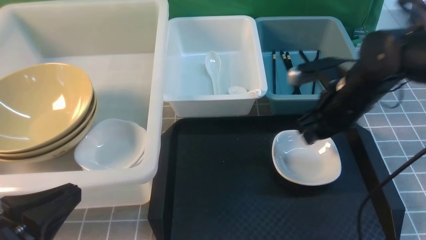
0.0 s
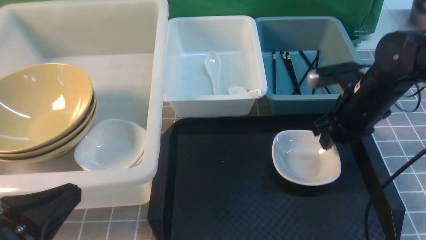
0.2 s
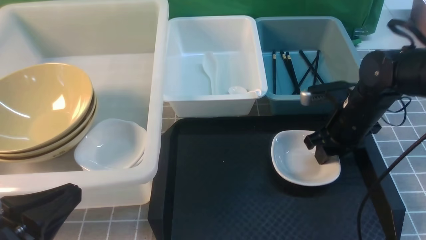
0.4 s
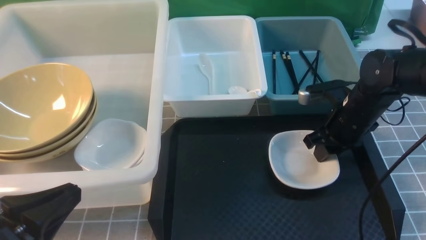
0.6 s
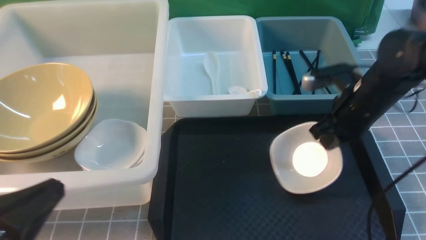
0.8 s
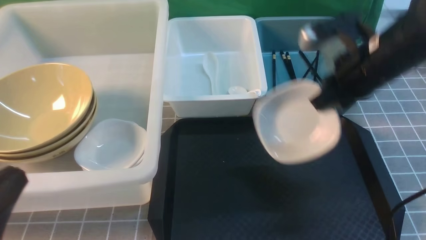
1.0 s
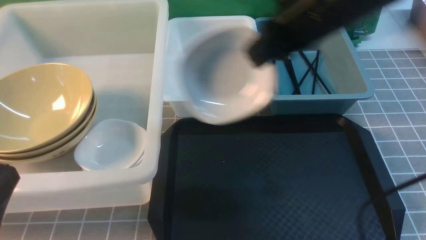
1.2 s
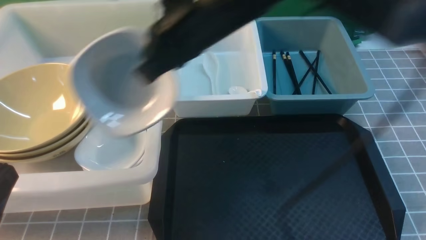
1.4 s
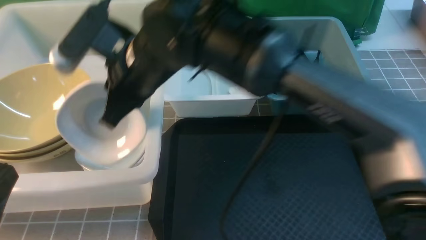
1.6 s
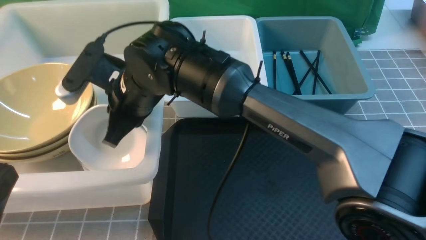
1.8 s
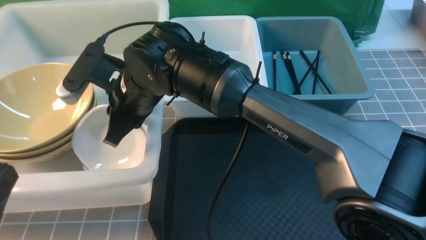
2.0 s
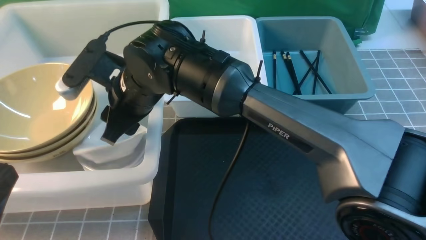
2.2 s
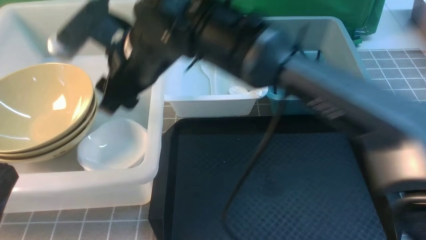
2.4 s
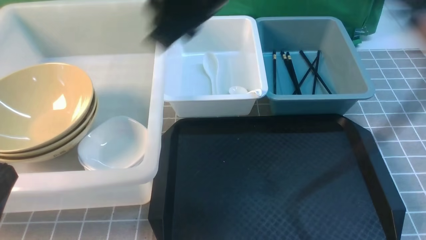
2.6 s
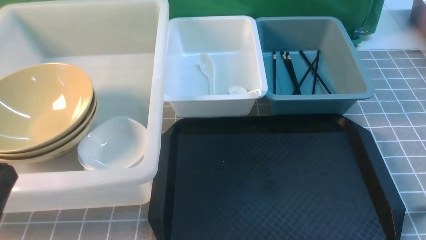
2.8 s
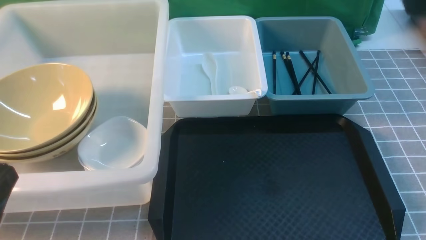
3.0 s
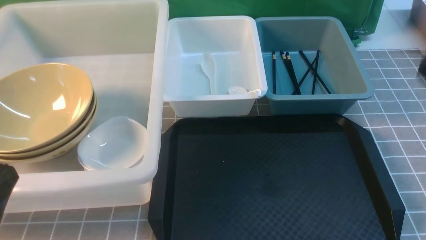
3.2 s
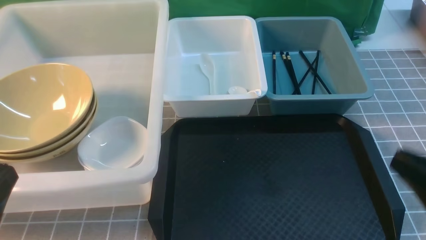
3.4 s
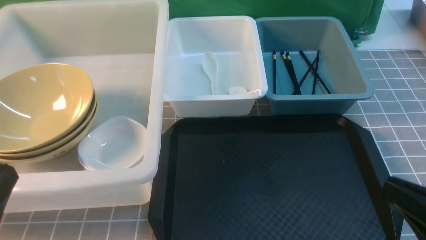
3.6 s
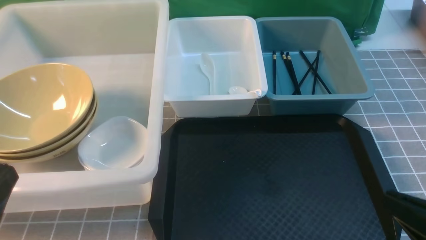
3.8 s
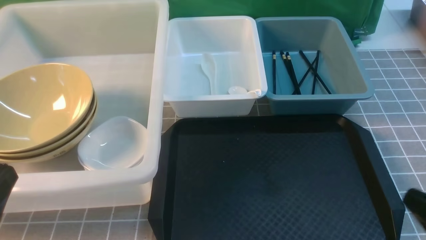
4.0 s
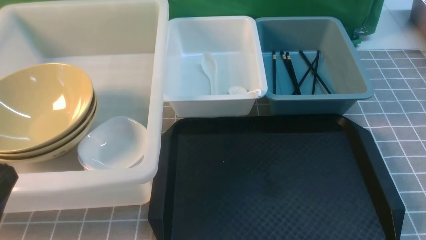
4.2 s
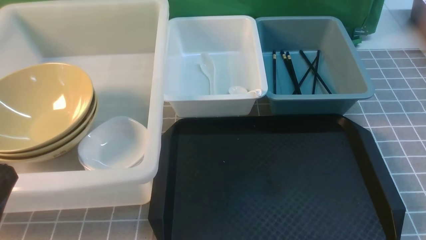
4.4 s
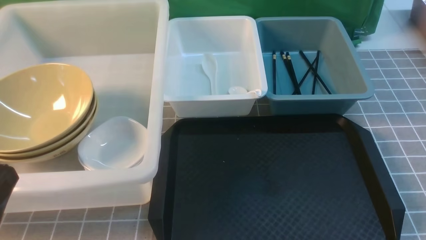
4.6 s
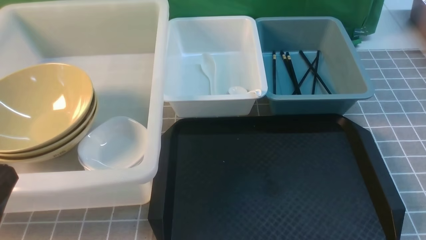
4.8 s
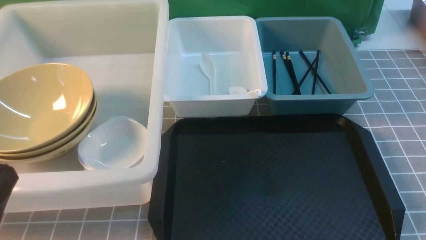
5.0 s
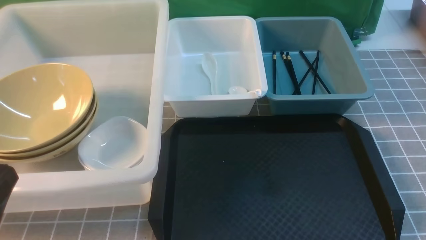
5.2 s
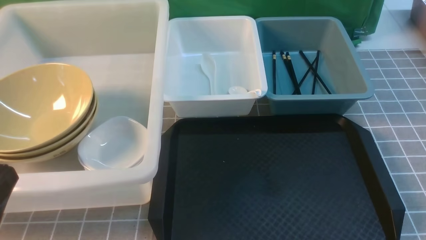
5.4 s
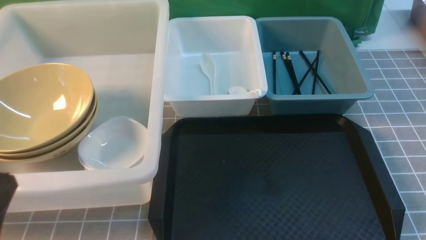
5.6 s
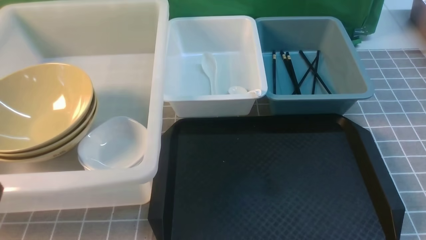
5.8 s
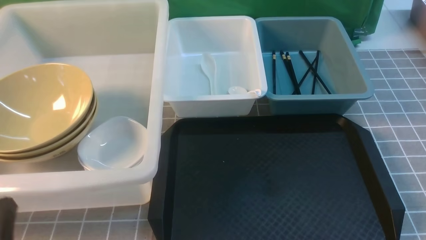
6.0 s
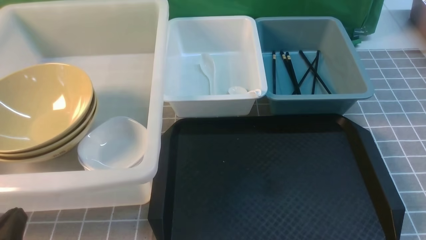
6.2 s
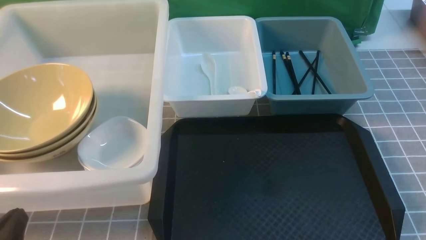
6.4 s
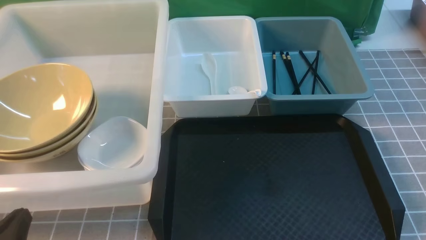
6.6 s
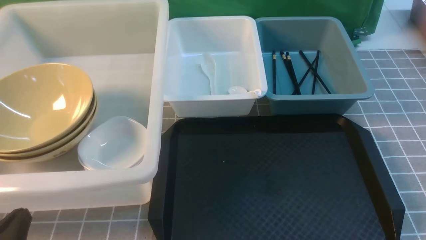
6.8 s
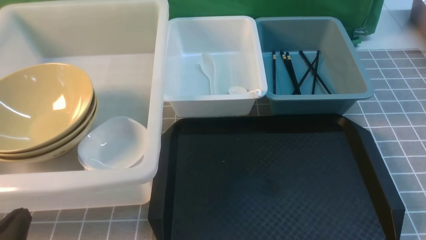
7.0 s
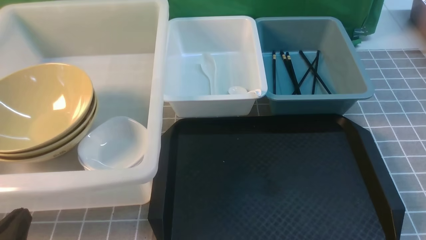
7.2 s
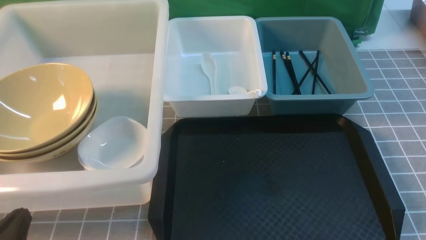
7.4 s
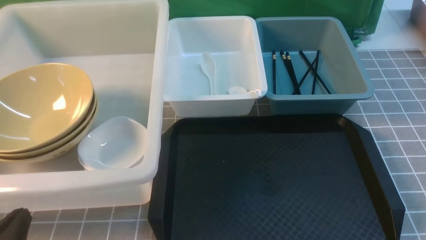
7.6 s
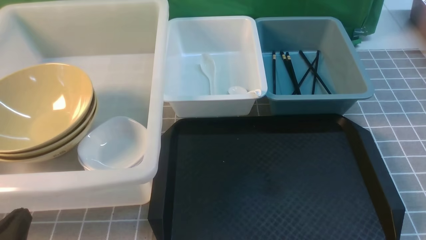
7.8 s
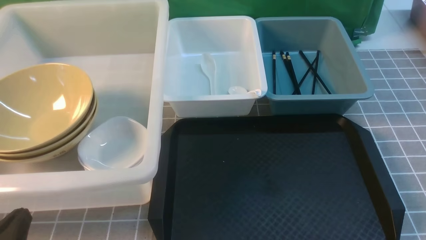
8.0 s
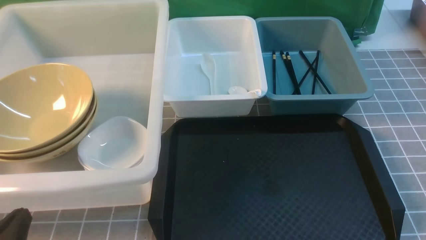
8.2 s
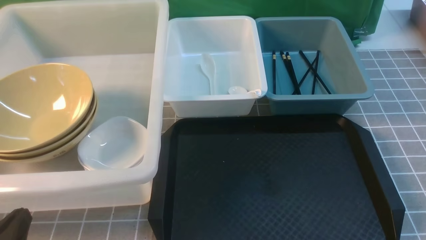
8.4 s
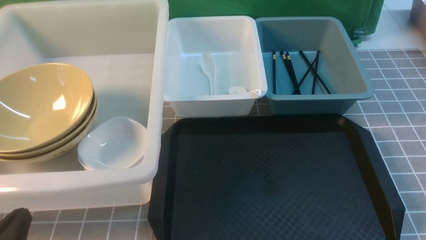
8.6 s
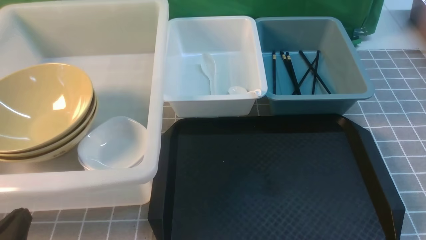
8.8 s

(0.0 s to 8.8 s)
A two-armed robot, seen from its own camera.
Task of the whole recording: on grey table put chopsticks spoon bowls plates into blue grey white boxes.
Step, 0.8 s - 2.2 s: use the right arm to put the plate into the large storage box on the left.
0.0 s - 1.4 s: The right gripper moves to the left and upward, some 25 cm, and closes.
1.4 s - 3.0 s: The right gripper goes approximately 25 cm to the right and backward, and opens and closes again.
7.4 s - 8.8 s: Both grippers stay put.

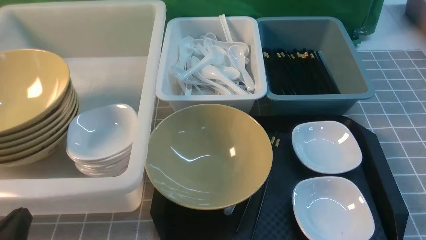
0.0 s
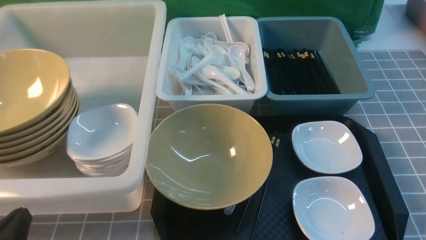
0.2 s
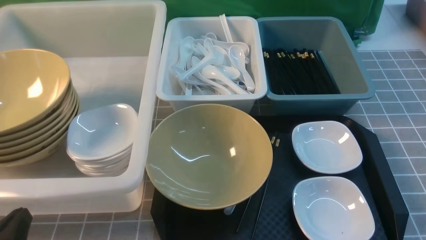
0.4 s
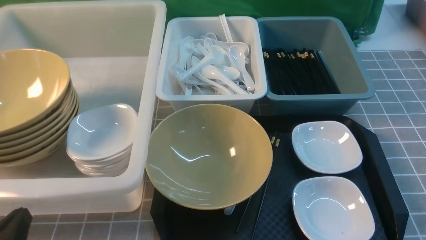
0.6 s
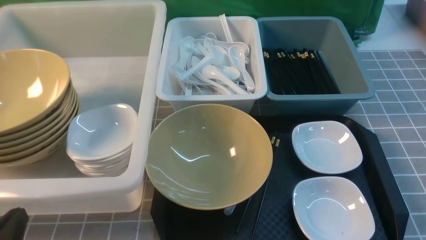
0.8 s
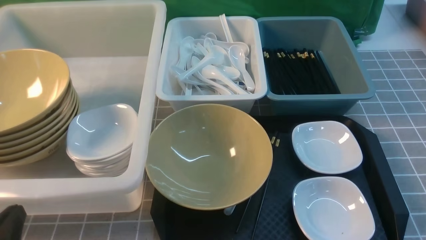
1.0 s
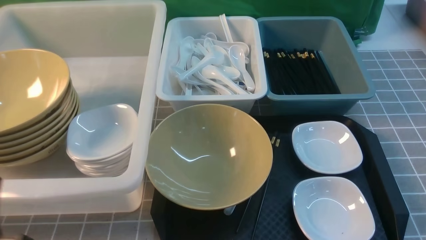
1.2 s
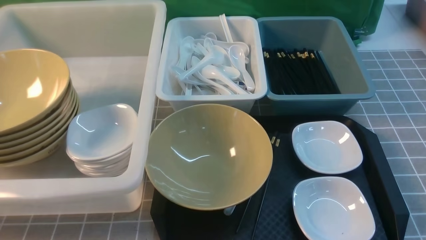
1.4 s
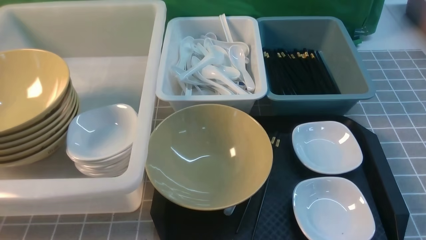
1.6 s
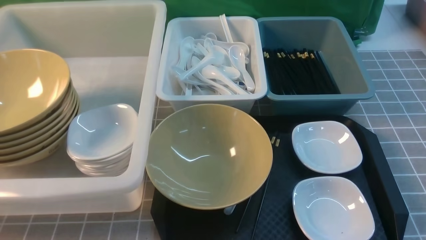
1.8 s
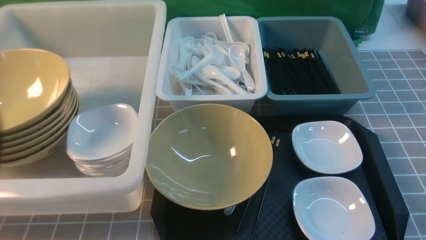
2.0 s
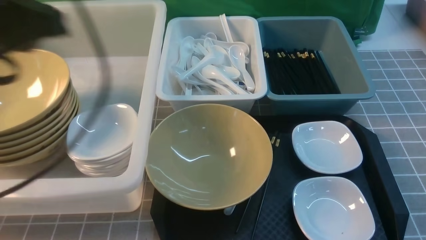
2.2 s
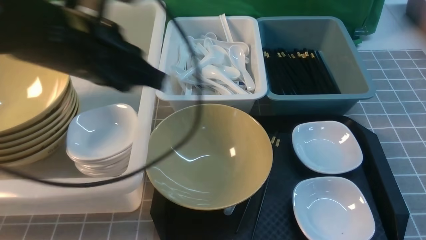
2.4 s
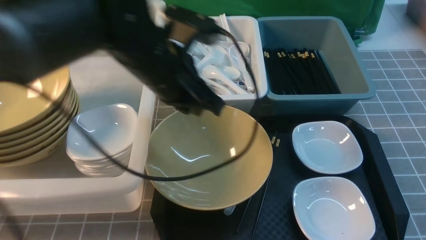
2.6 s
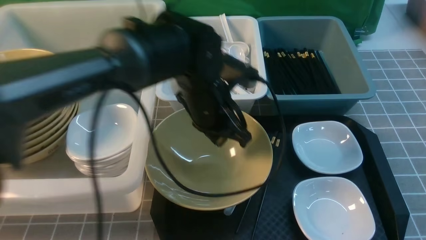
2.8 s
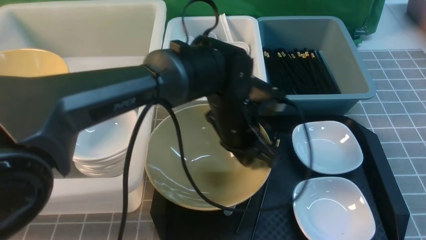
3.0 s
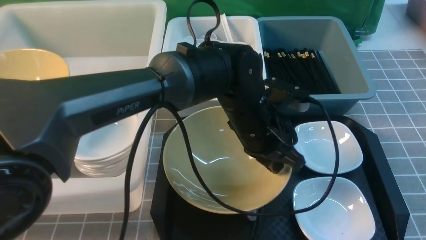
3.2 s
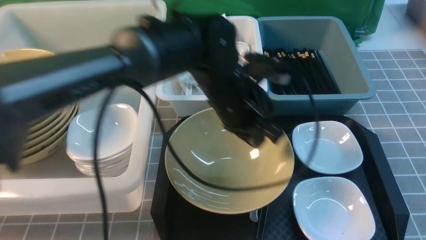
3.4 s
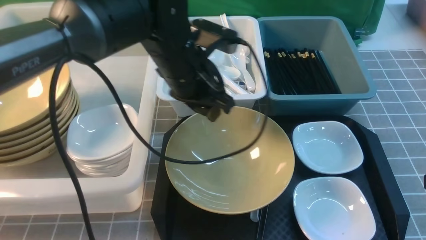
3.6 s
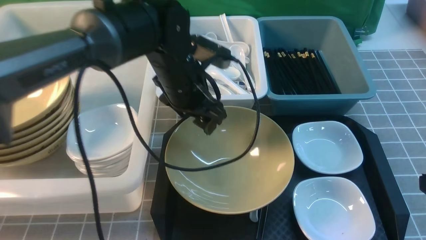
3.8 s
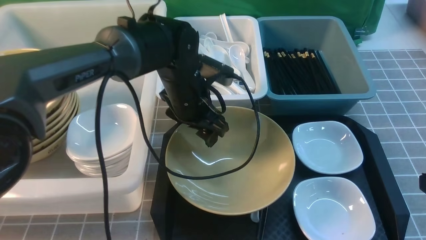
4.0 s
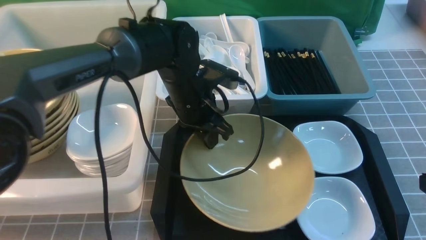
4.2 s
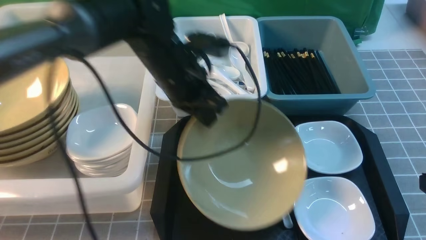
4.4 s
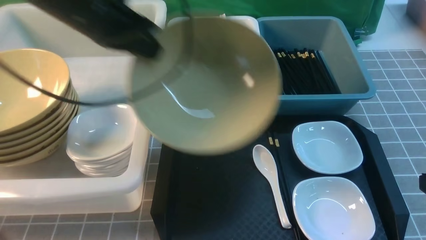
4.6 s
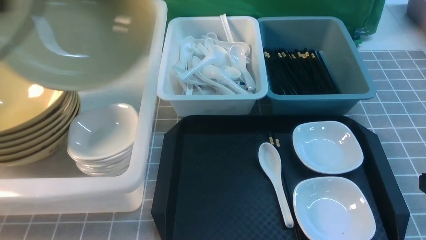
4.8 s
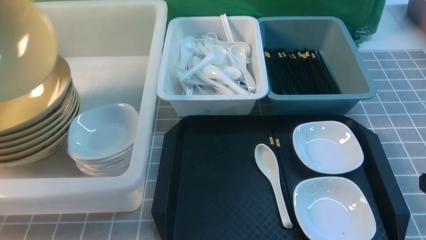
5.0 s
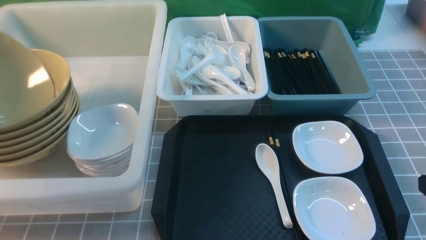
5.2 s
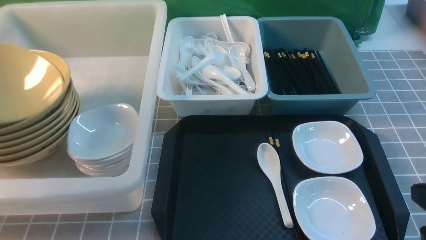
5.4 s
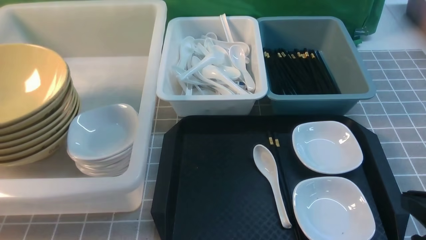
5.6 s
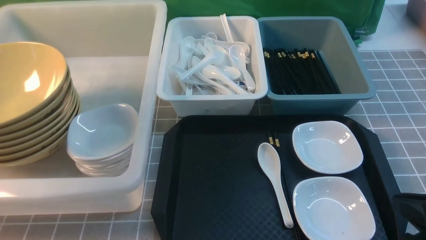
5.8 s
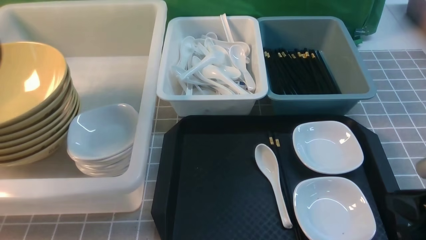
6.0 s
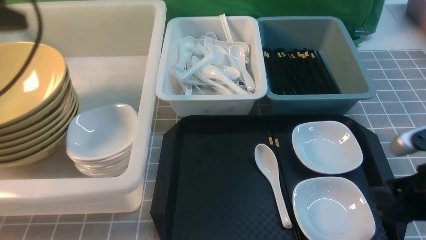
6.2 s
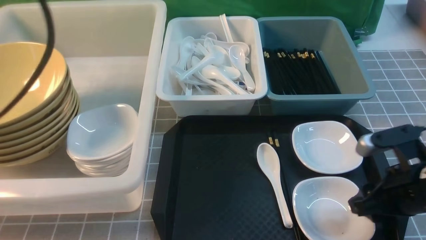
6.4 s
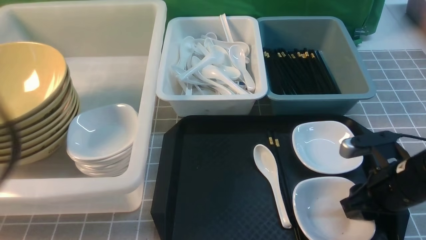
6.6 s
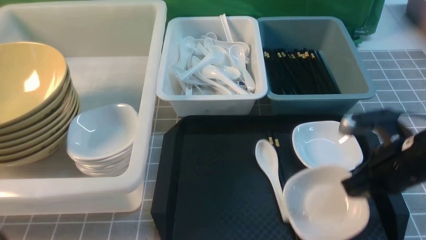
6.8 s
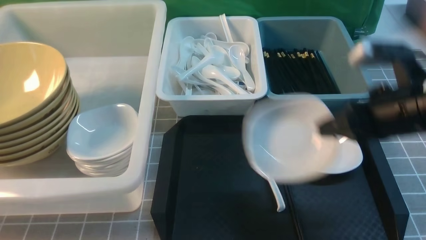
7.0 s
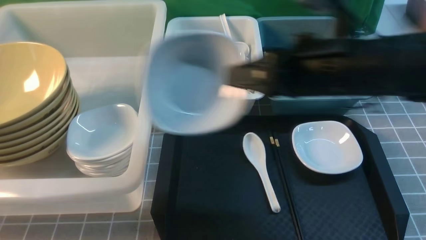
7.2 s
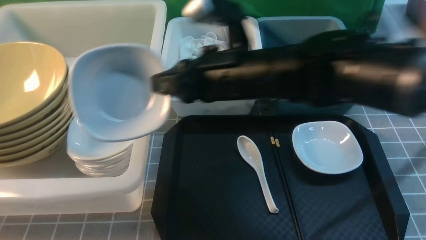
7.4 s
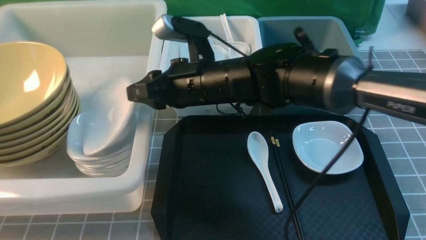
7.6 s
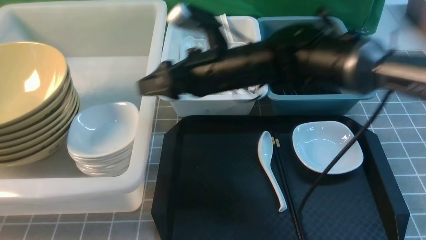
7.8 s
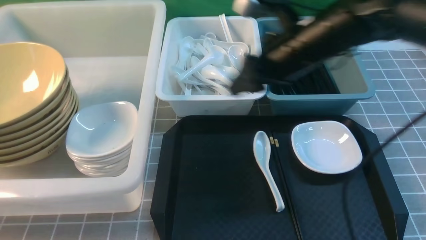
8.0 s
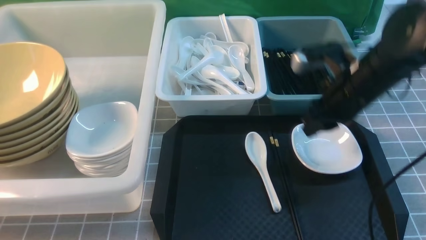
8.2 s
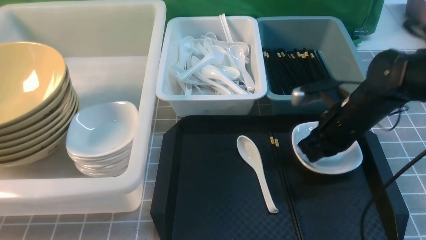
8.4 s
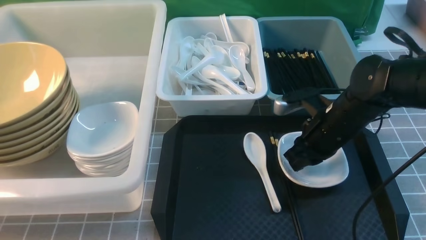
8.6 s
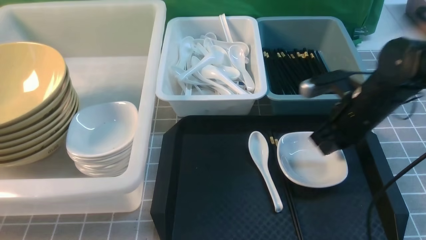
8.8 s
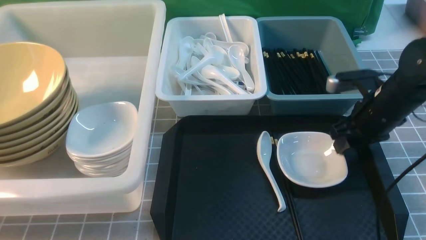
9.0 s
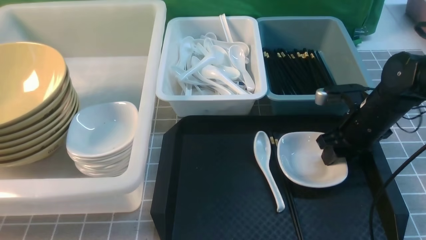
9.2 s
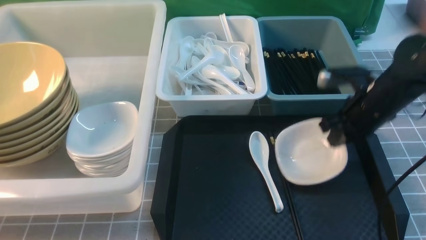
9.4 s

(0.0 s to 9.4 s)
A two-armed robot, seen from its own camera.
Task of the whole recording: on grey table put chopsticks spoon bowls plates into blue grey white boxes.
Step, 0.0 s - 4.2 s: use the left arm to grab the yellow noodle bowl on the left.
Step, 4.4 s - 6.0 s: use the left arm to put the noodle bowl into the large storage box on the left.
Step, 6.2 s - 6.8 s: use the right arm to grab the plate.
Step, 7.2 s - 7.6 s: use the right arm to put the plate into the large storage box on the left.
Step, 7.8 s - 9.4 s: use the right arm to grab the plate.
0.0 s - 1.6 s: The left gripper heads upward, covering approximately 15 cm.
1.6 s - 3.2 s: The right gripper heads forward, covering roughly 10 cm. The left gripper is displaced to the right and forward by roughly 40 cm.
3.2 s - 4.8 s: The left gripper is displaced to the left and upward by roughly 40 cm, and opens, then closes again.
4.8 s - 6.2 s: The right gripper travels forward by some 5 cm, and opens; the left gripper moves to the right and backward, some 10 cm, and opens, then closes once more.
6.2 s - 7.8 s: The left gripper is displaced backward and downward by some 25 cm. Meanwhile the right gripper goes about 30 cm to the left and forward, and closes and opens again.
7.8 s - 9.4 s: The right gripper shifts approximately 20 cm to the right, and closes its fingers.
